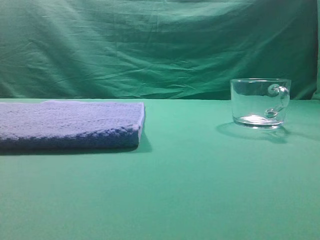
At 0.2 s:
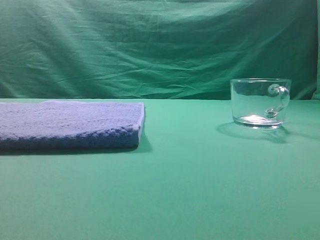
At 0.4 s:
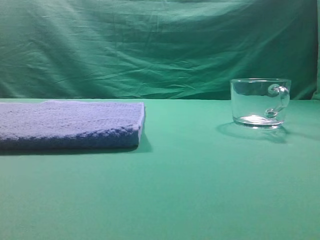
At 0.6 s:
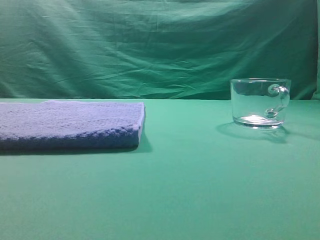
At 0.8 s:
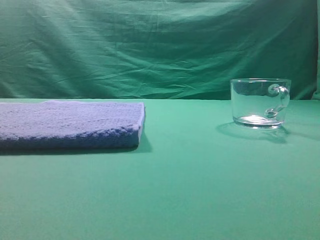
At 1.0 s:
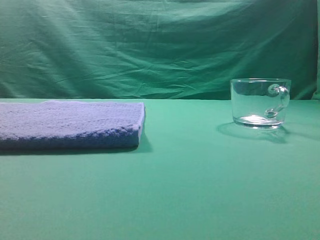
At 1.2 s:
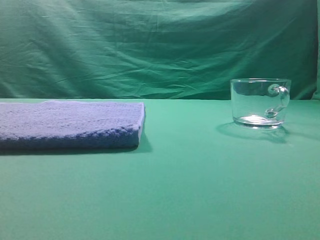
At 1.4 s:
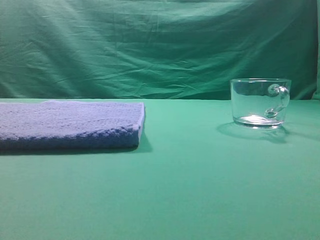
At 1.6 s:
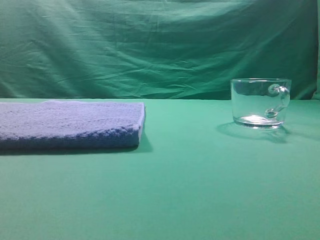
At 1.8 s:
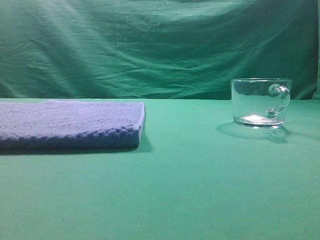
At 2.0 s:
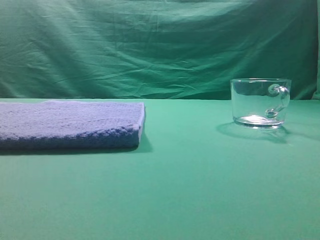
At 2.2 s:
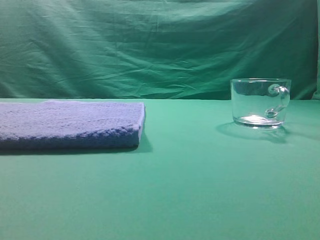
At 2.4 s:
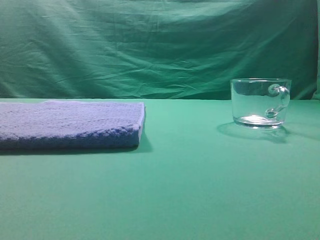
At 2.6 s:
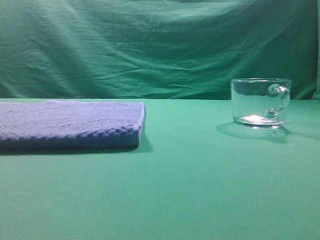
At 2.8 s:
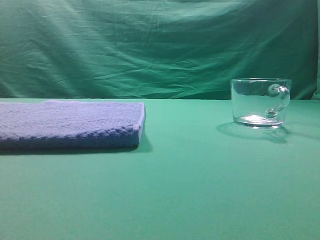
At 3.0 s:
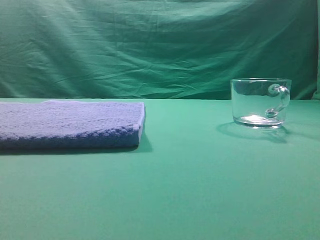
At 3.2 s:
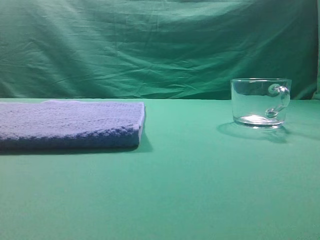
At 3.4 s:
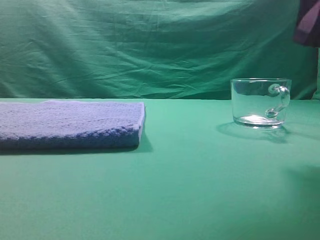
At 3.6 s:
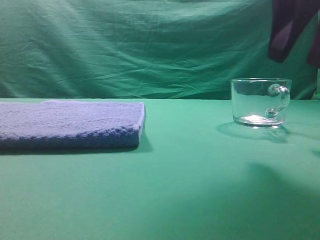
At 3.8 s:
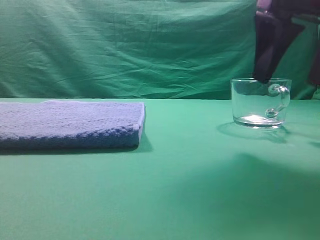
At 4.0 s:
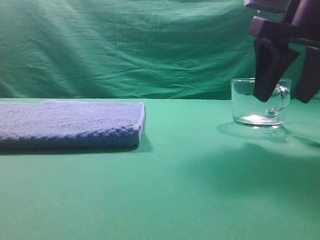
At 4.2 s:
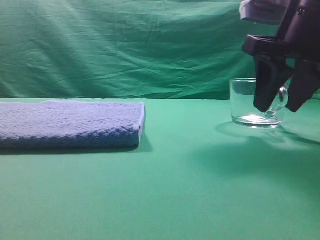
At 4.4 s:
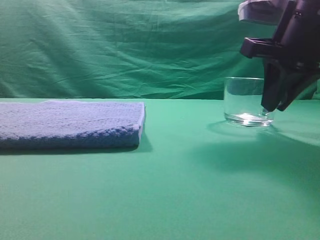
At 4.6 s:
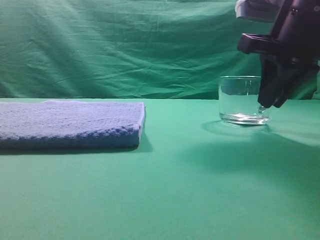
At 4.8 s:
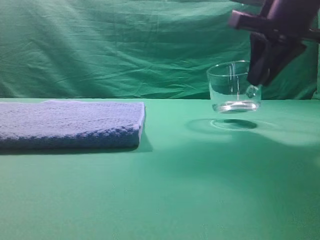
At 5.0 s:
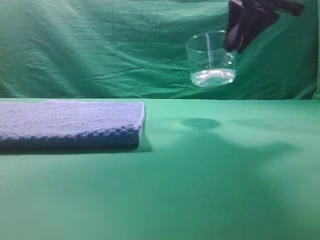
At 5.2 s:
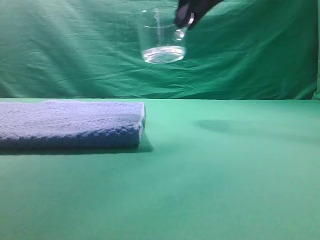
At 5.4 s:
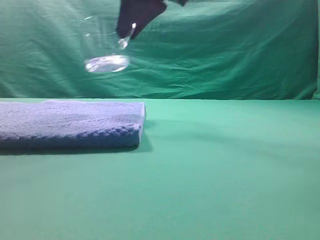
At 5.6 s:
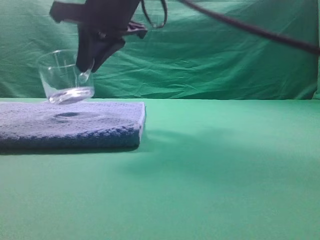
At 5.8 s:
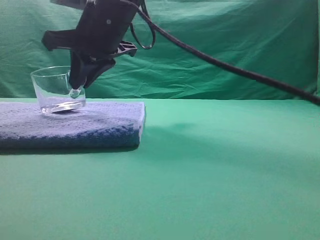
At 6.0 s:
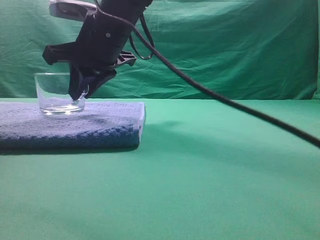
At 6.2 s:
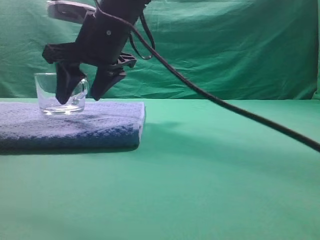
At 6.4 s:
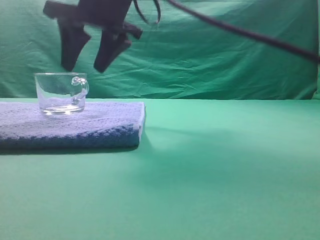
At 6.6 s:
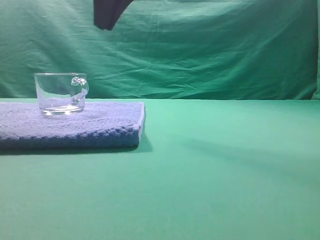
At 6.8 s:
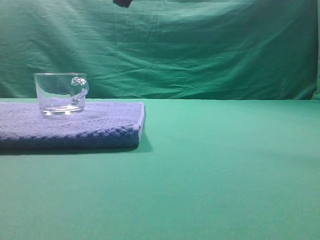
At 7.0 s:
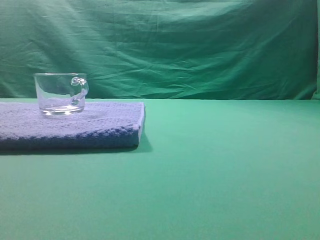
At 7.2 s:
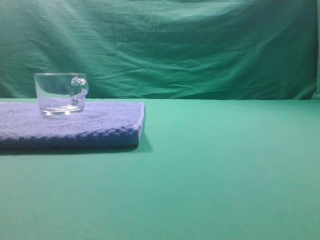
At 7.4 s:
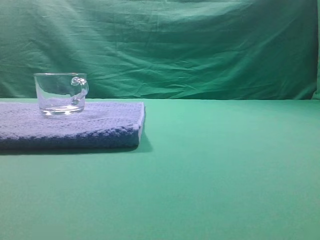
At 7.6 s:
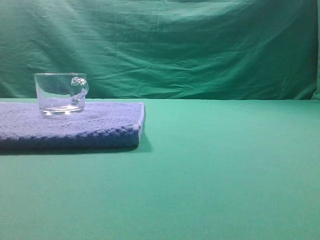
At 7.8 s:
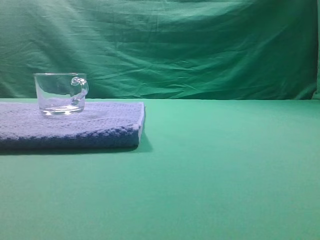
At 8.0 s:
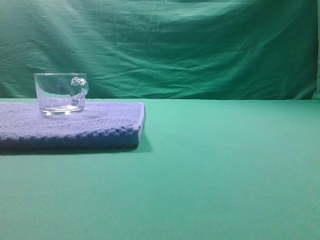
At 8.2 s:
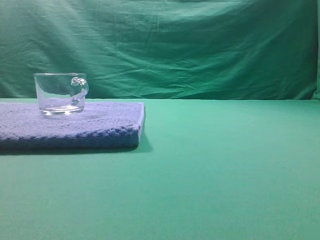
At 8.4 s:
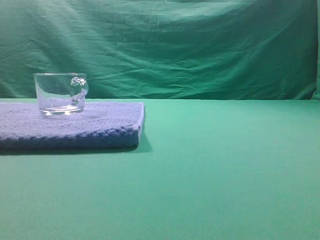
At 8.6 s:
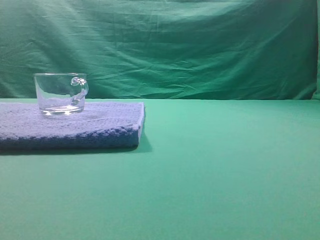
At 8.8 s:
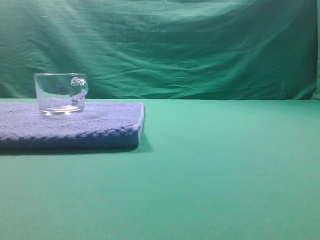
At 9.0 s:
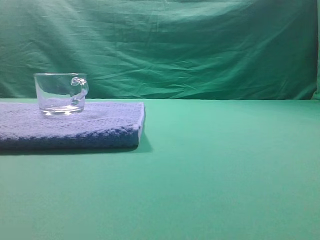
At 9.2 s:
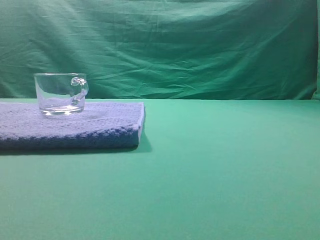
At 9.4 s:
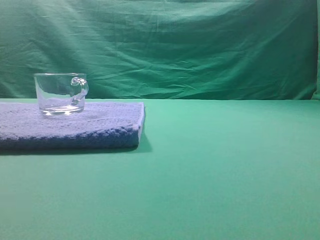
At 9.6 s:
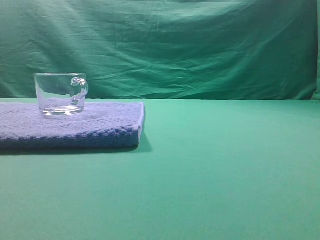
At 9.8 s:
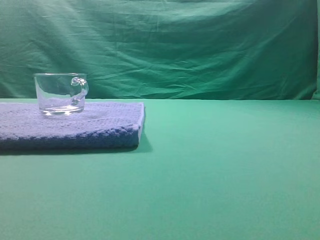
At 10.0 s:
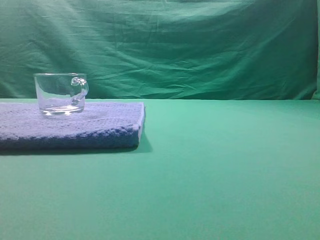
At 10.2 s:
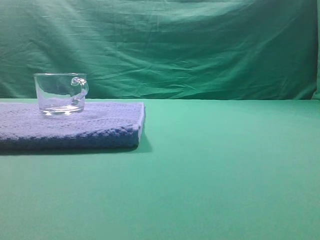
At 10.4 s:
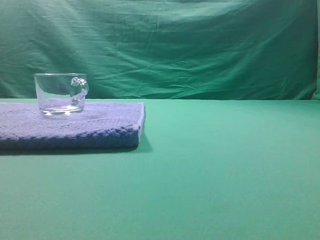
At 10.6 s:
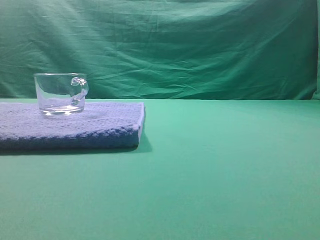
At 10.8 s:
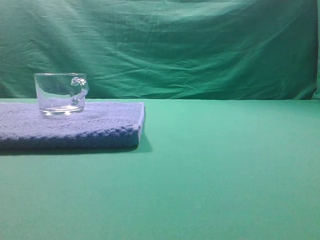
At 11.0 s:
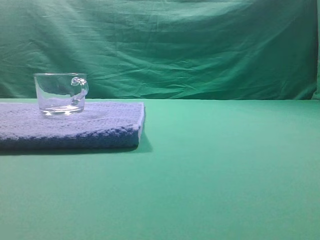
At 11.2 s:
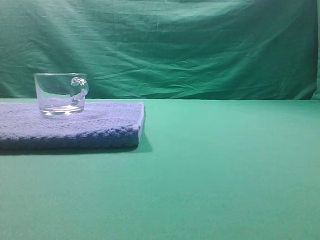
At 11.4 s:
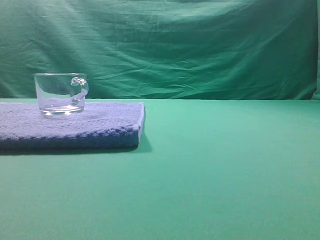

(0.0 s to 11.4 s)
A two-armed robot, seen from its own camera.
Task of the whole recording: grasp the transparent glass cup and place it within the blue towel.
Step, 0.0 s - 4.8 s: Grasp the transparent glass cup.
Step, 5.0 s - 6.4 s: Place the glass cup on the blue zone.

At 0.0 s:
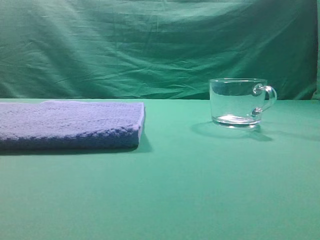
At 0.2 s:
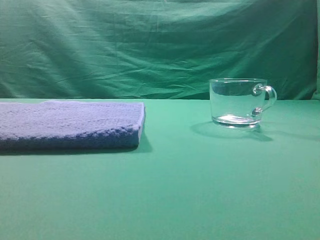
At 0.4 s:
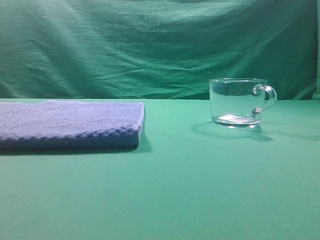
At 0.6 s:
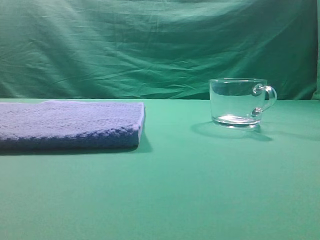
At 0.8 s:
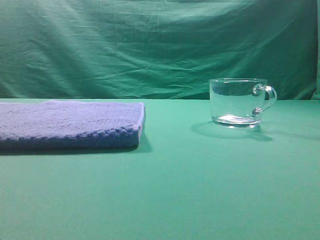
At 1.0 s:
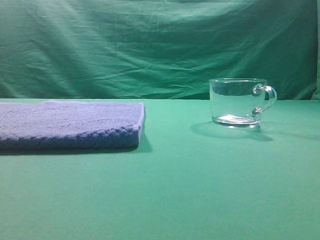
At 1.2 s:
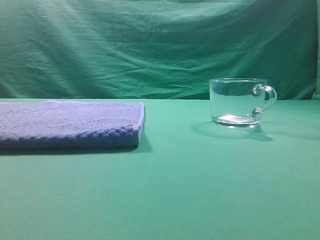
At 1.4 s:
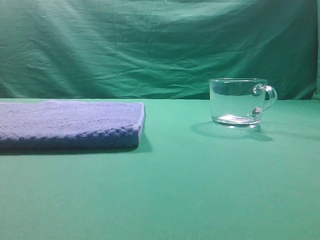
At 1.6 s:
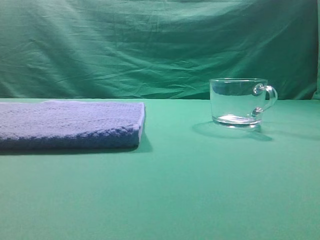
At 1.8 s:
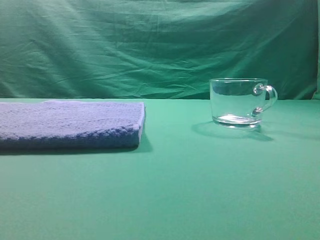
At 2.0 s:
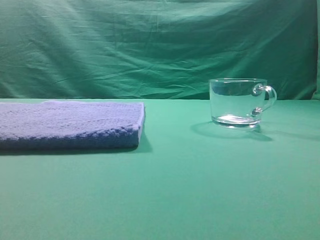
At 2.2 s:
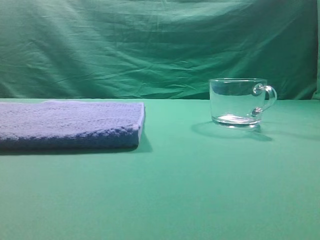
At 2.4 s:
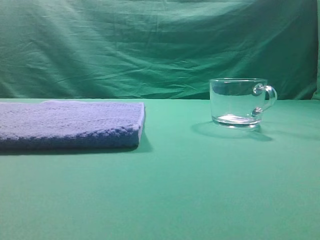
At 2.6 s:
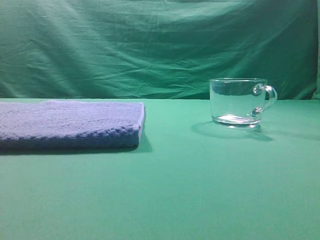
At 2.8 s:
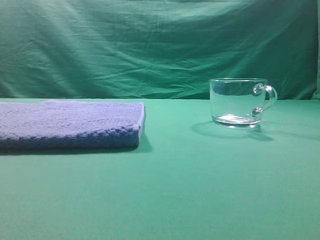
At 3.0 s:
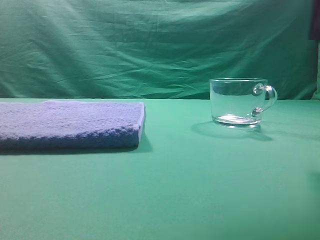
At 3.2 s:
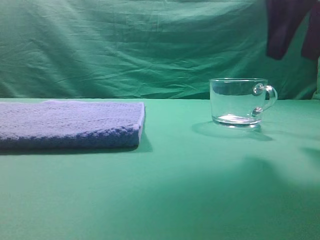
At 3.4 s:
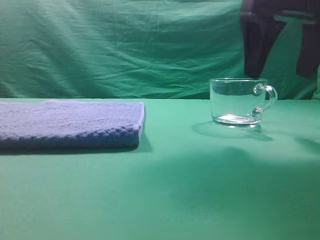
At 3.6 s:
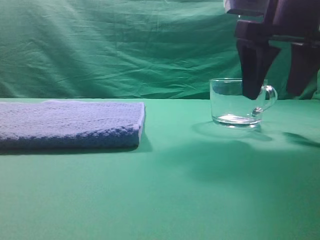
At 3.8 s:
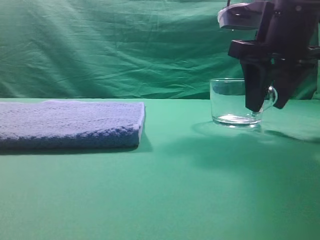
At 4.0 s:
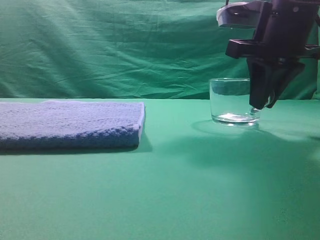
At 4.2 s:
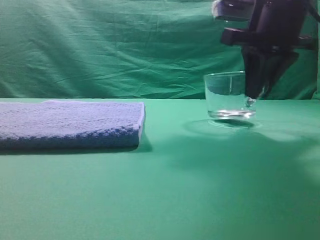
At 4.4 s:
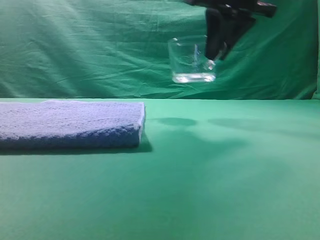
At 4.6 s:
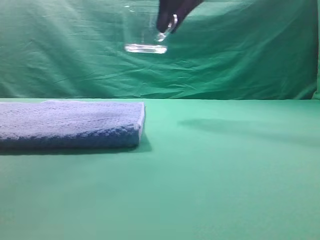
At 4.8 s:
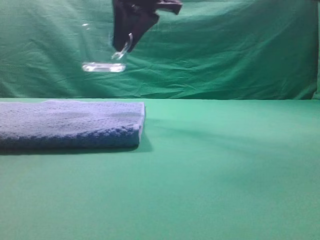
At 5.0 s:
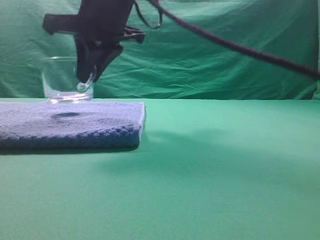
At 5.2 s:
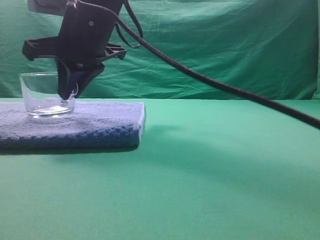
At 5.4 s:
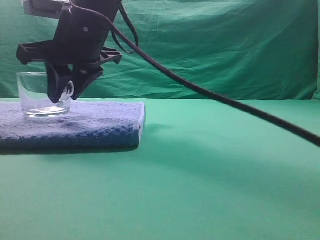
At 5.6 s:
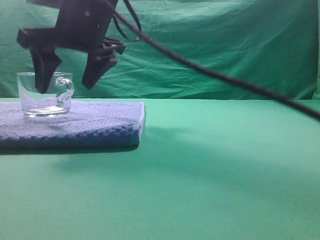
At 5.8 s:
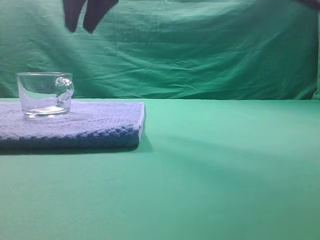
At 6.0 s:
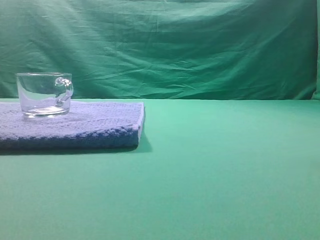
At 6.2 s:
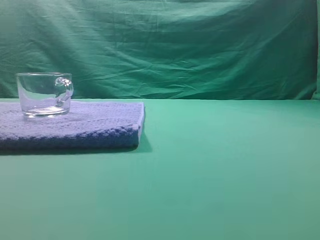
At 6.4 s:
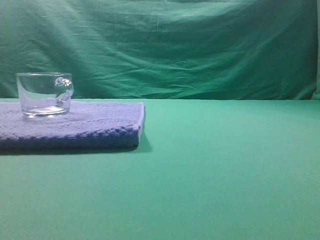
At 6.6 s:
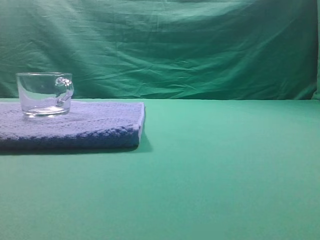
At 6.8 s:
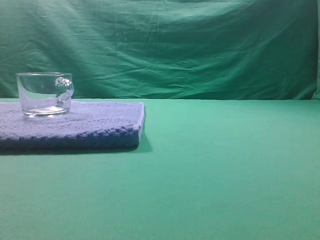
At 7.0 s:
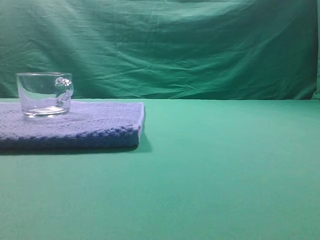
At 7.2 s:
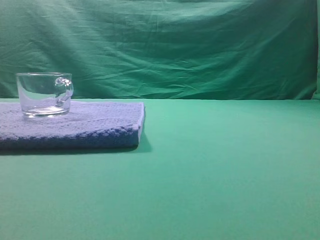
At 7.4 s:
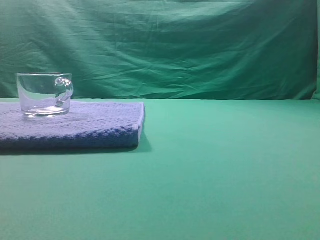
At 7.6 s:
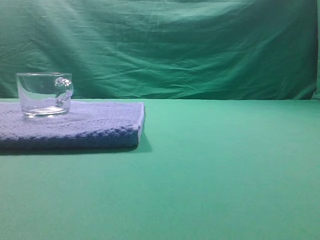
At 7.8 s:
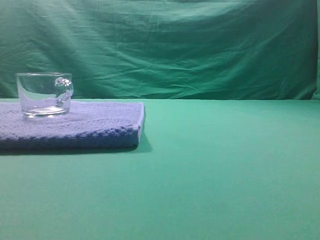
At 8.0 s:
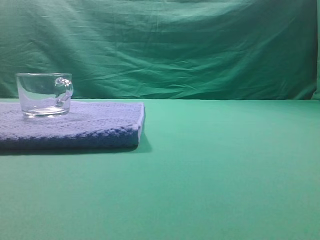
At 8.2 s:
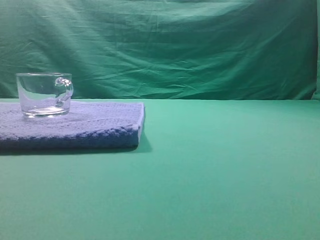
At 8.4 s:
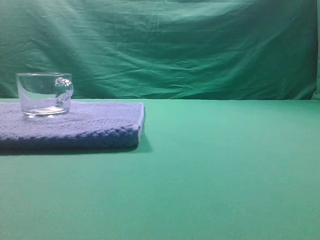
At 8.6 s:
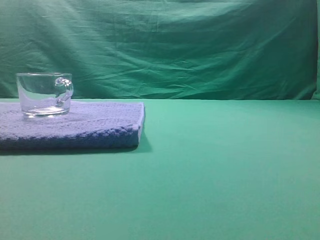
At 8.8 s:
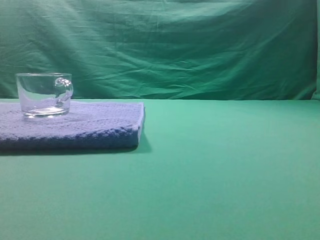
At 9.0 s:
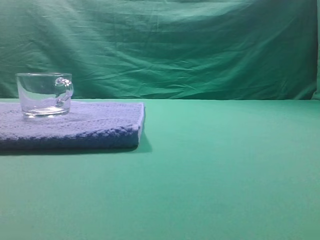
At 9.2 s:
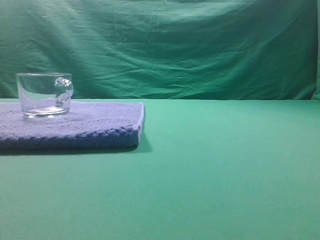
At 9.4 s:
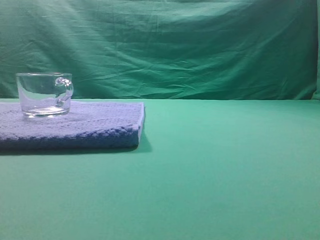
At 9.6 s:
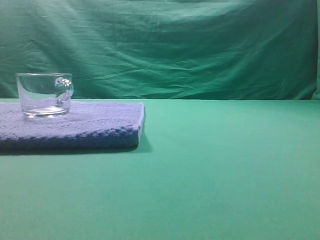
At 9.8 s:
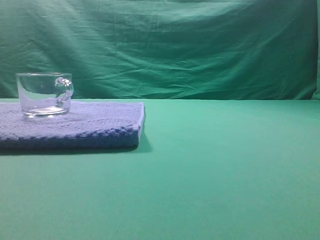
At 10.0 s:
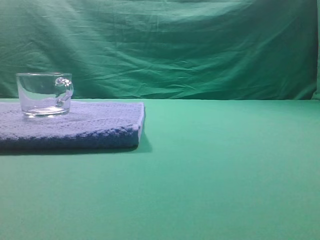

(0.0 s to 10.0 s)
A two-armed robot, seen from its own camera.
Task of the whole recording: grasp the transparent glass cup and place it within the blue towel.
Step, 0.0 s - 4.2 s: Grasp the transparent glass cup.
Step, 4.4 s - 5.6 s: Place the glass cup on the blue zone.
